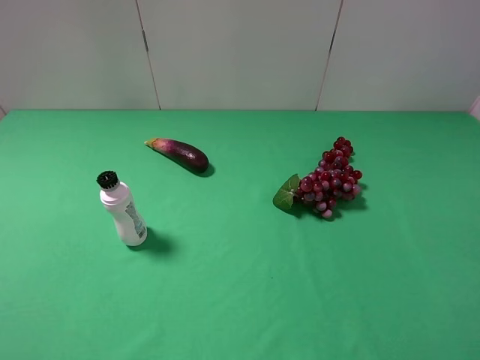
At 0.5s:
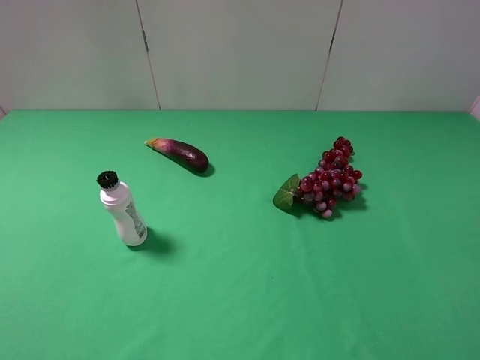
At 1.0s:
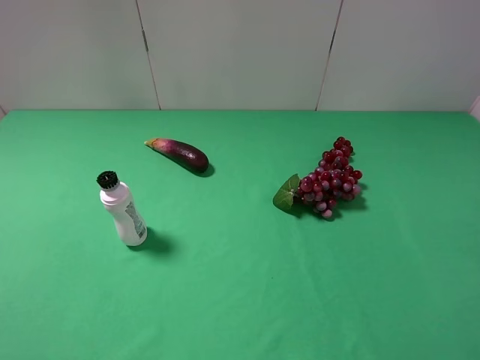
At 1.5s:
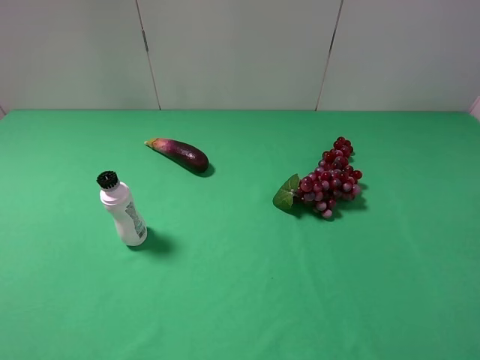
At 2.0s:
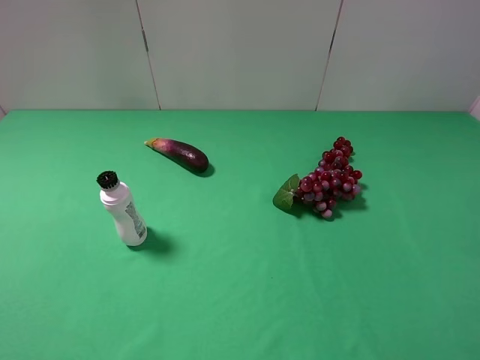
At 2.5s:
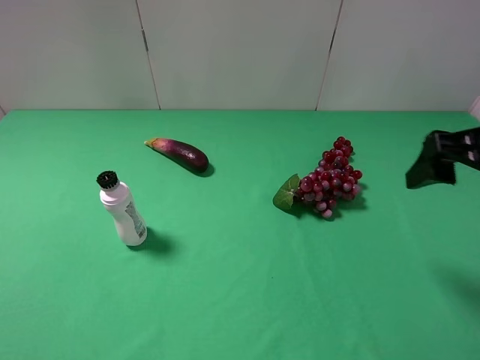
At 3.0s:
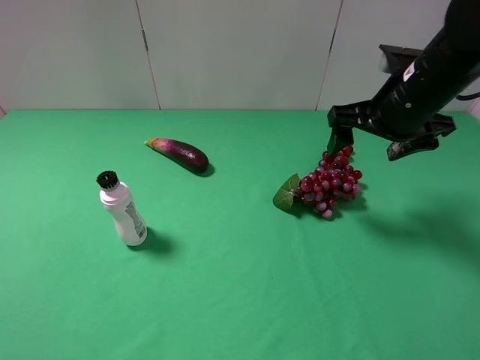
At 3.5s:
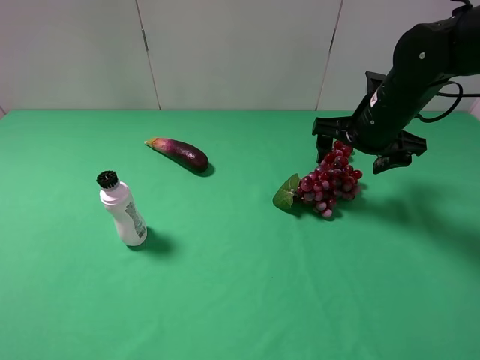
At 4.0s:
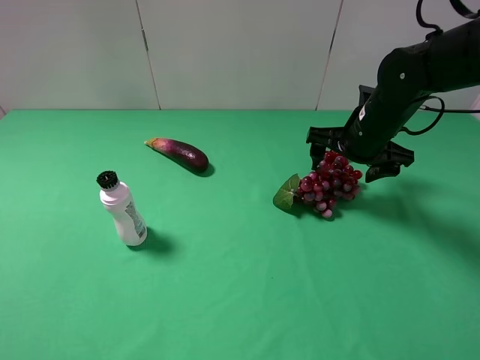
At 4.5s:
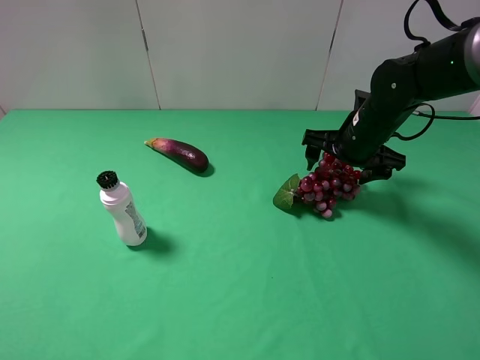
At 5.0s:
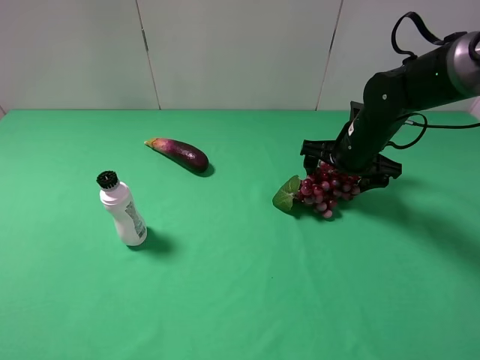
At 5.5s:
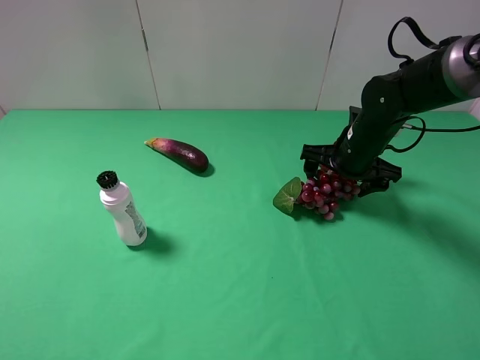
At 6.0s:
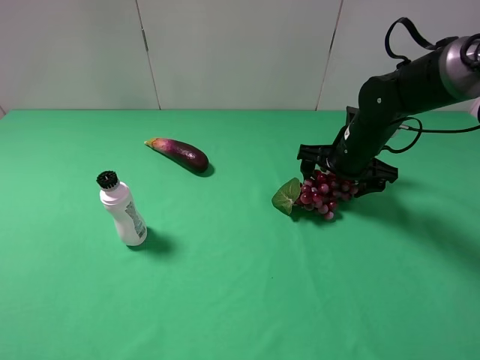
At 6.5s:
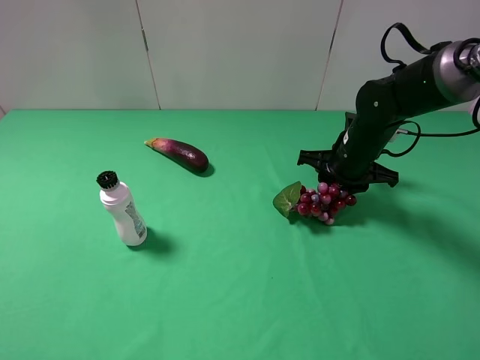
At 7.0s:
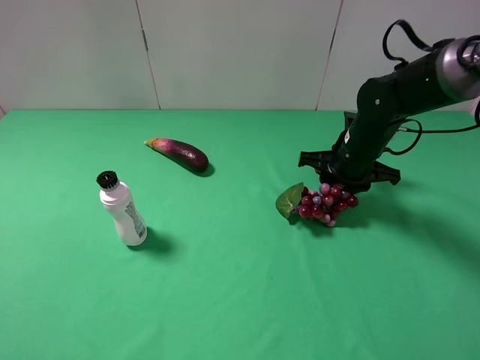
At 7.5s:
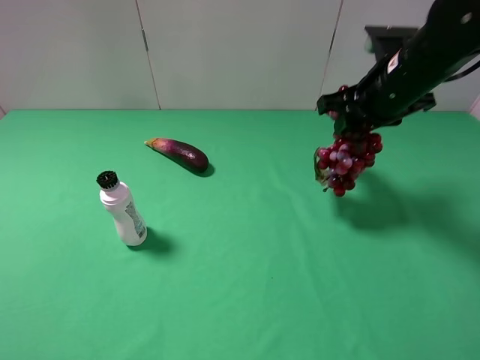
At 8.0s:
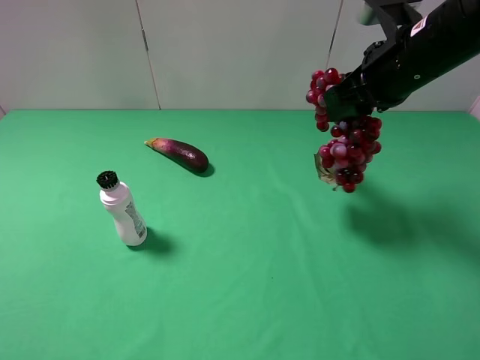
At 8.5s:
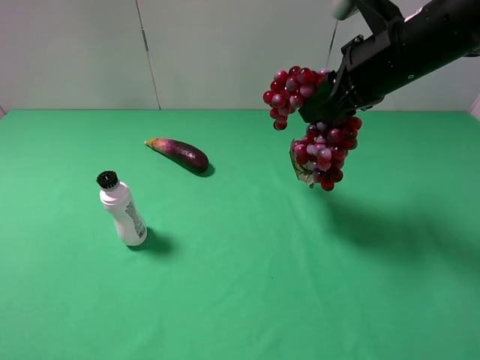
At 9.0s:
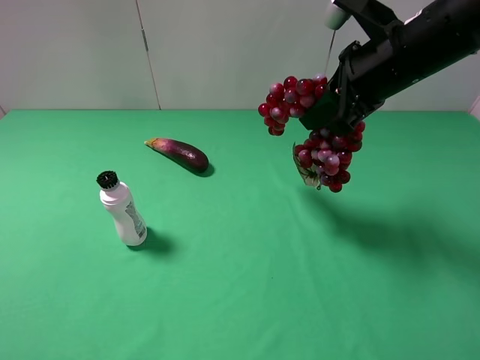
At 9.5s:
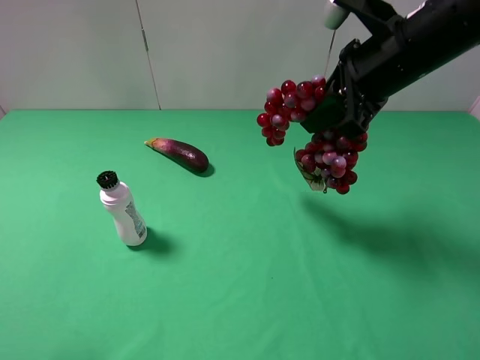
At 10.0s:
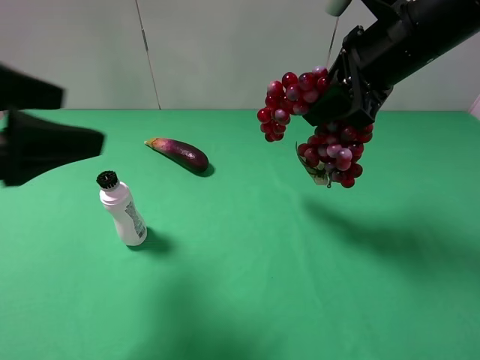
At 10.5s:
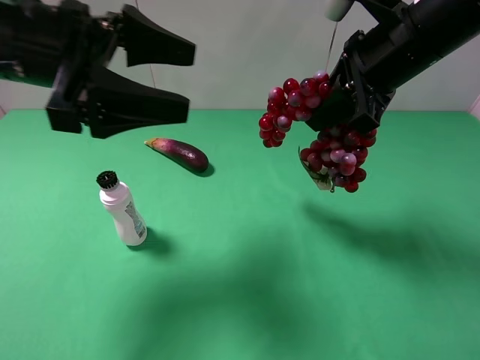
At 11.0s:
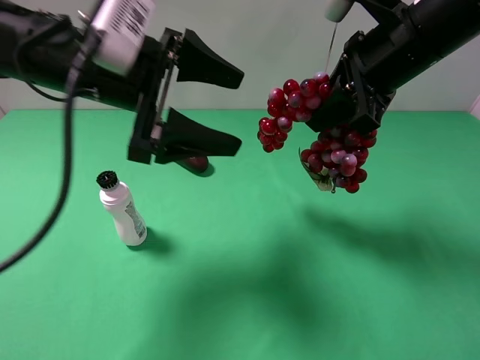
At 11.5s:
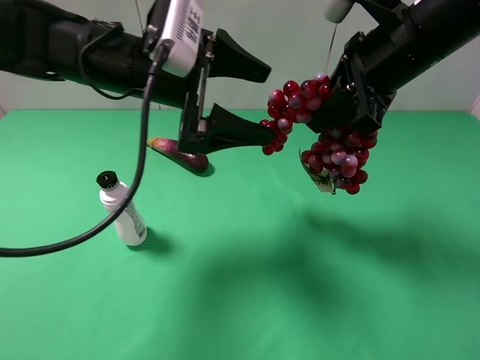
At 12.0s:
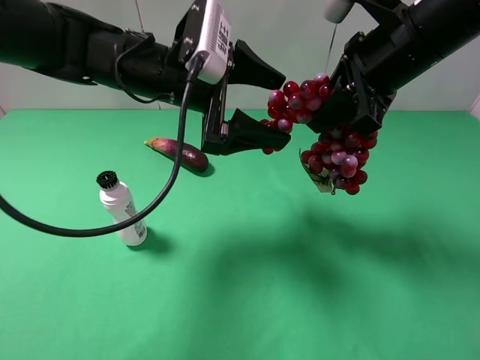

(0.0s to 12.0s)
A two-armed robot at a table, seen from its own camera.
Task of the whole recording: use the right gripper to pick up the item and transfer it from the right gripper to the left gripper.
Step, 0.0s - 5.5s: Use the right gripper to grab the grape on the right side of the table.
2.0s - 4.0s: The right gripper is displaced forward by some 30 cm.
4.0s - 6.0s: The grippers move only a little.
6.0s - 8.0s: The right gripper travels upward by about 15 cm, and closes up.
8.0s - 10.0s: The left gripper is displaced forward by about 20 cm.
10.0s - 12.0s: The left gripper is displaced to the right, forward and downward by approximately 20 cm.

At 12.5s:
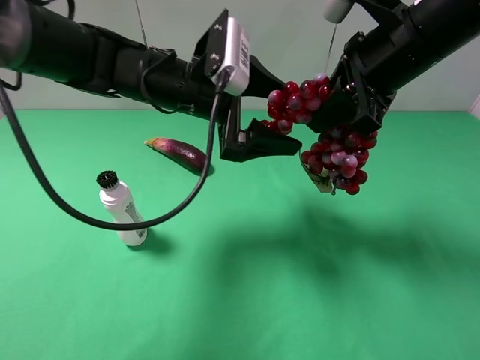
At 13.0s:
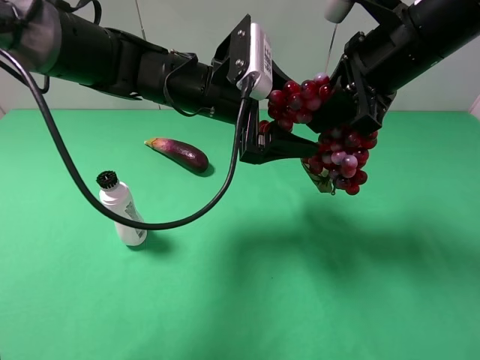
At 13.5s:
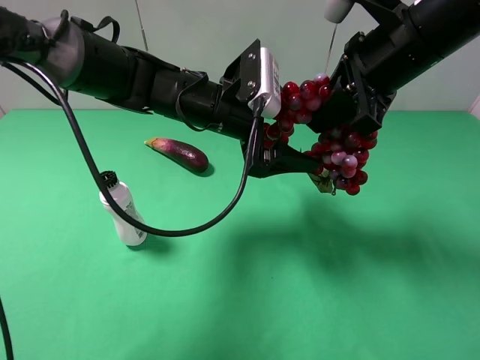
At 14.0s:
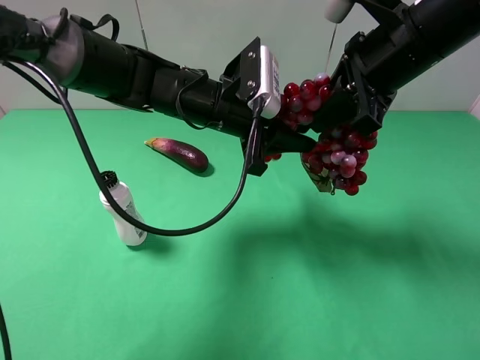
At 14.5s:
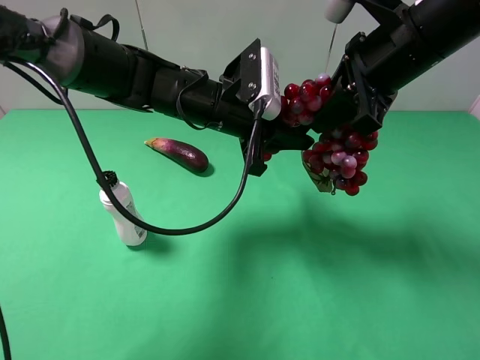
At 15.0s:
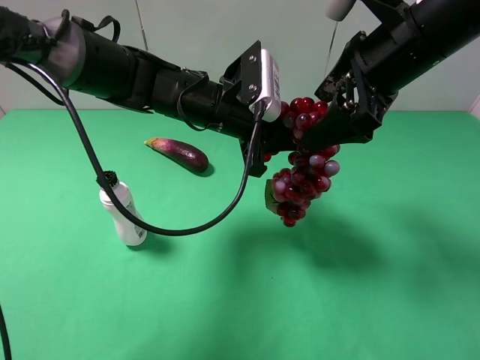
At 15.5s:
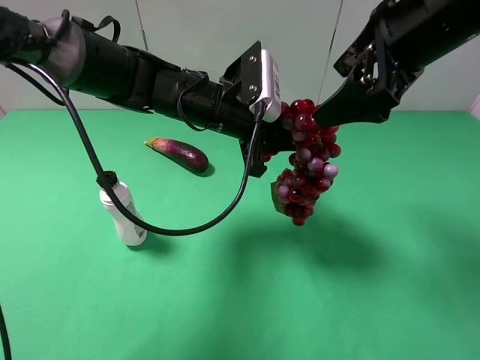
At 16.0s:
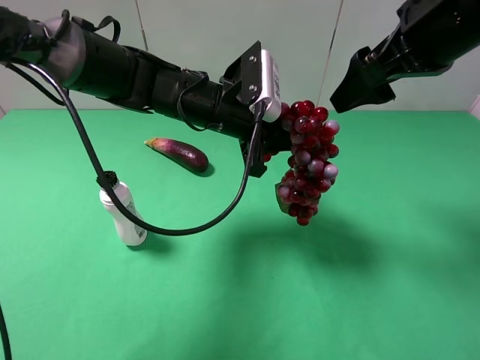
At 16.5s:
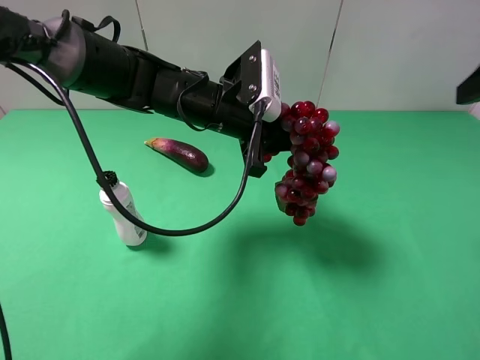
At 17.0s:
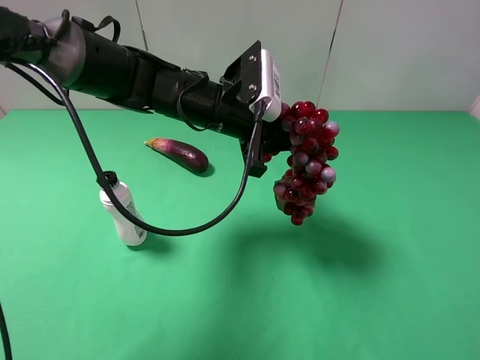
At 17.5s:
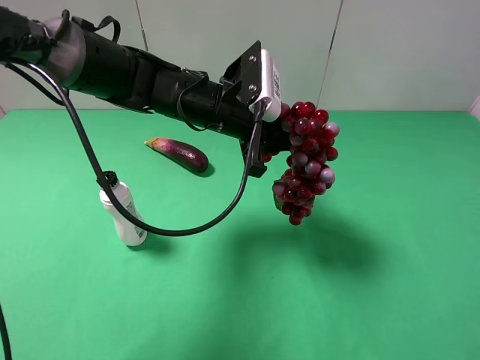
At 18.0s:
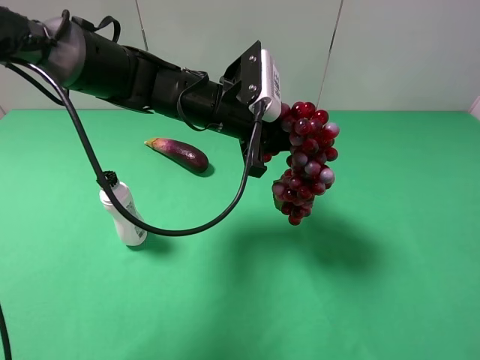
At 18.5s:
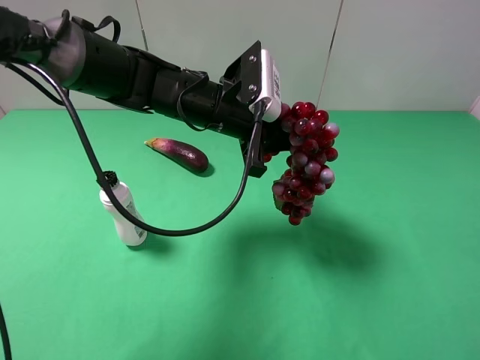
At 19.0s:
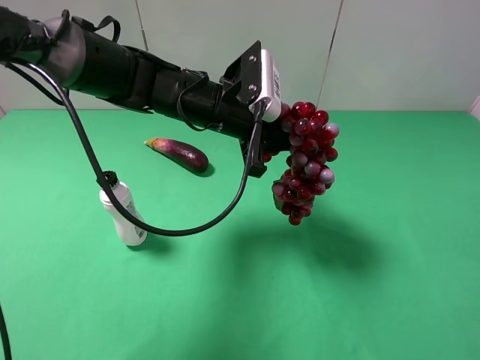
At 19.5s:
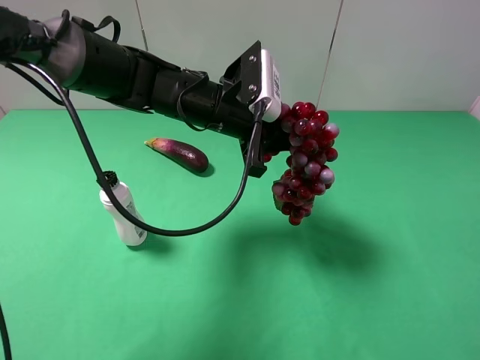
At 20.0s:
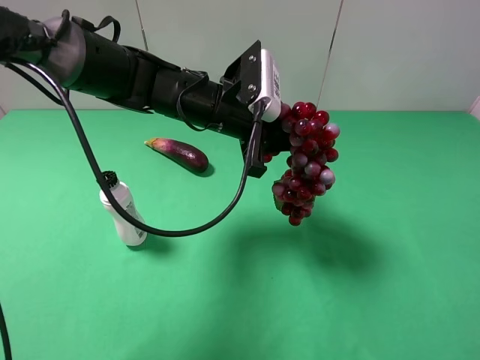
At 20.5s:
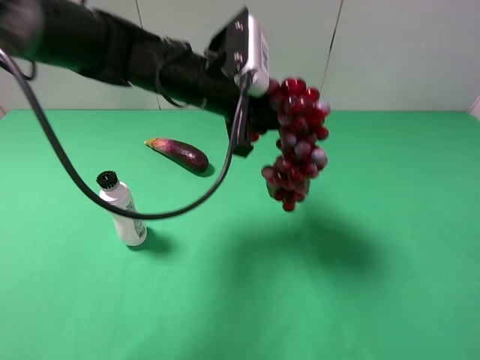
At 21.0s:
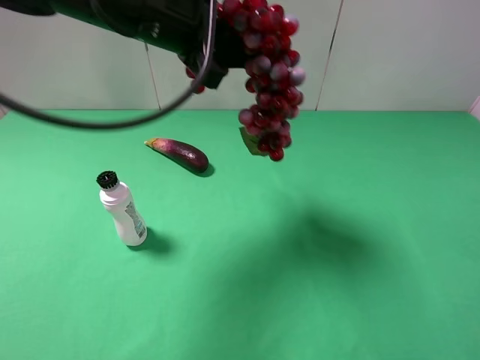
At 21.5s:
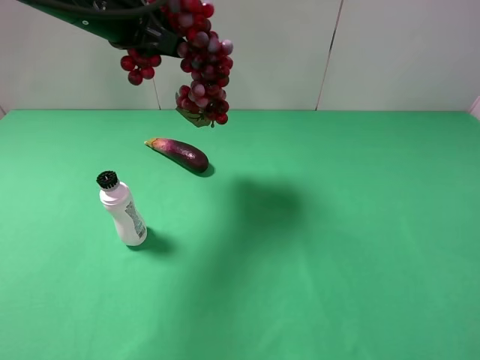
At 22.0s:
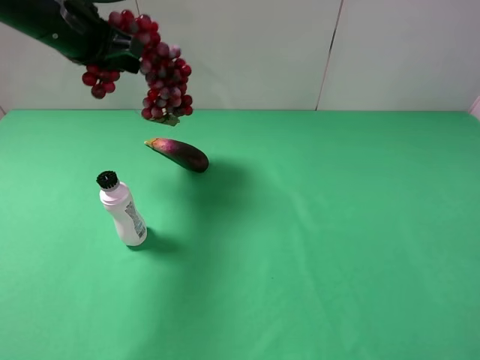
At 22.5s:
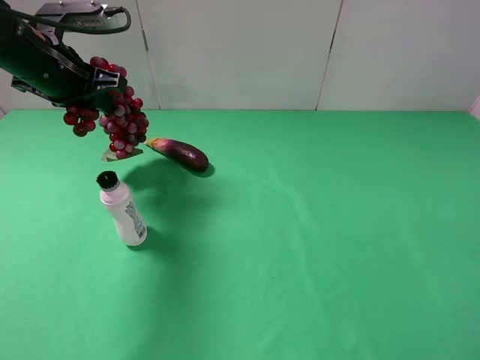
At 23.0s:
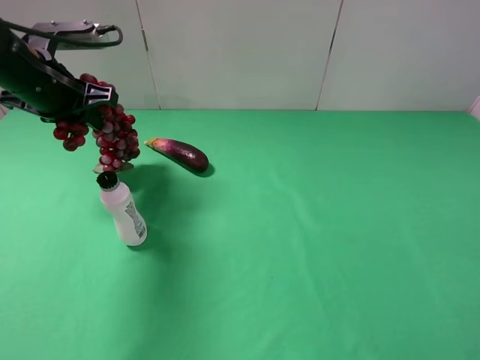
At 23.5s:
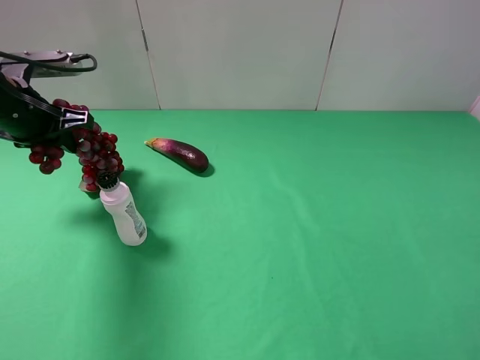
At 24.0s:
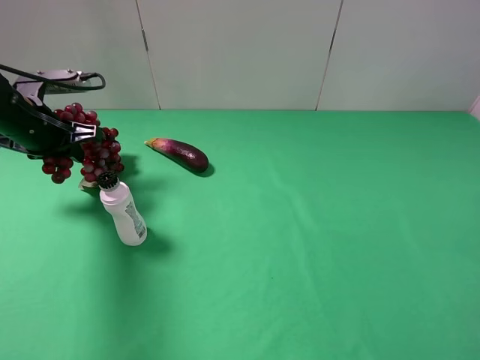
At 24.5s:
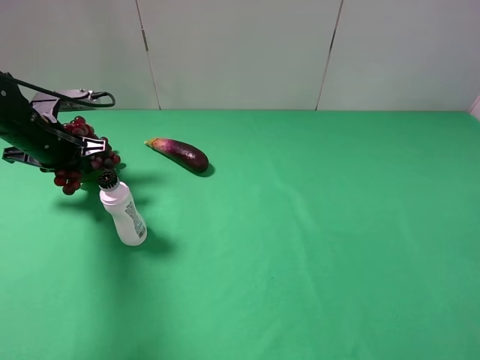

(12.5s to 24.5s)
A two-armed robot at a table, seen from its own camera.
Task of the whole recording: use the right gripper to pick up the item and transfer it from the right gripper to the left gripper.
Step, 12.5s - 15.5s: Pass the grape to the left gripper.
12.5s - 14.5s: The left gripper closes.
14.5s - 16.5s: The right gripper heads to the right and backward, covering roughly 15 cm, and opens its fingers.
16.5s - 18.5s: The right gripper heads backward and downward, covering about 20 cm.
18.5s - 20.5s: The left gripper shifts by about 5 cm.
20.5s - 22.5s: The left gripper heads to the left, covering about 20 cm.
22.5s - 24.5s: The left gripper is displaced downward and to the left by some 10 cm.

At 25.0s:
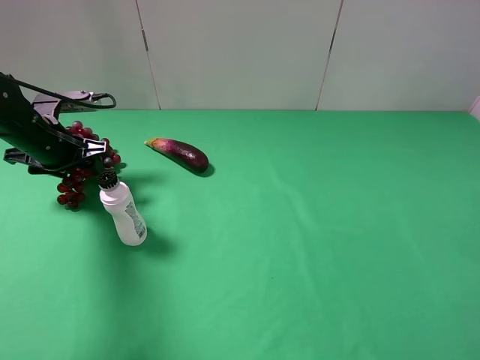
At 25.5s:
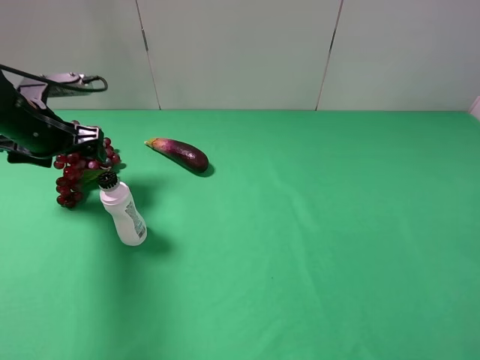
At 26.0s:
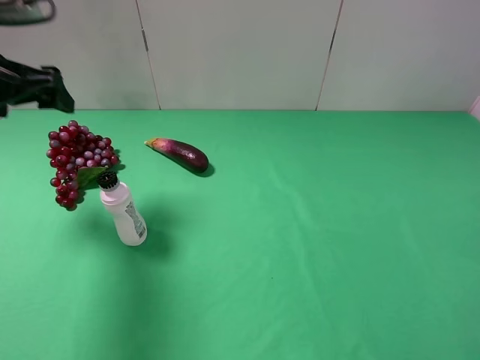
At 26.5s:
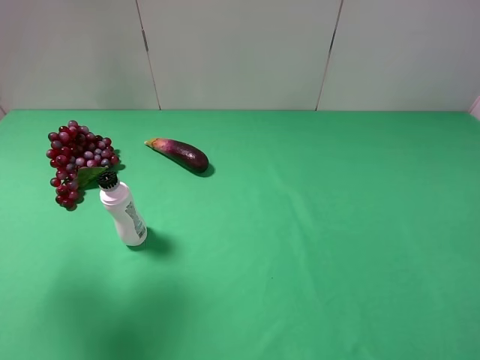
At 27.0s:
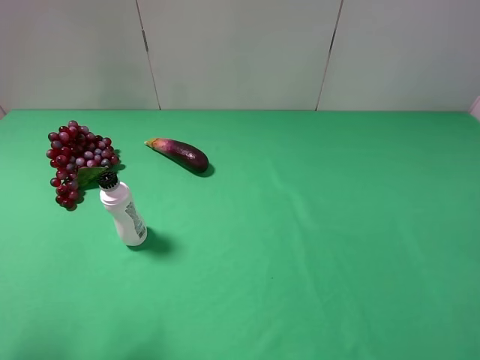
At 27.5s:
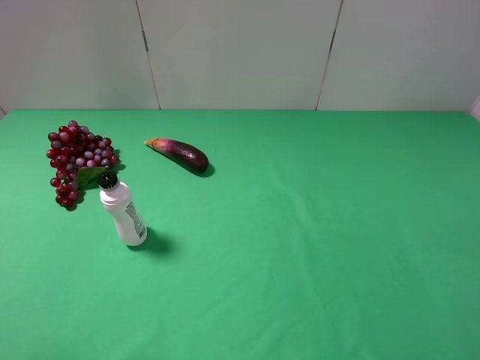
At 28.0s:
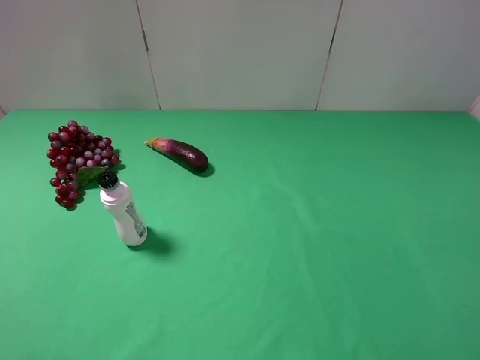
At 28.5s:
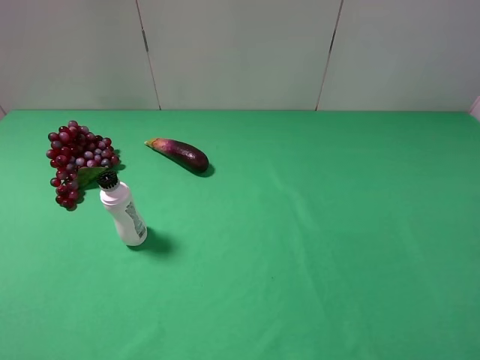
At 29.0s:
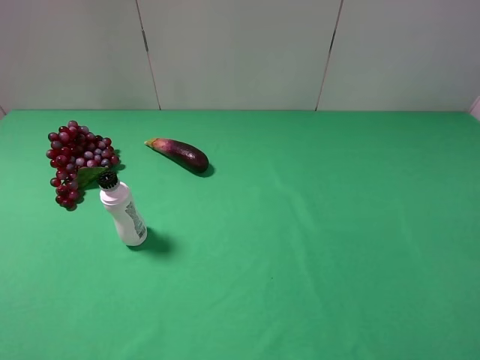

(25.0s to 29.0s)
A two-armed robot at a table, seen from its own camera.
Task of the whole recording: use the right gripper to pick up the item and transfer it from the right gripper to the left gripper.
25.0s - 27.0s: The left gripper shifts roughly 35 cm backward and upward.
